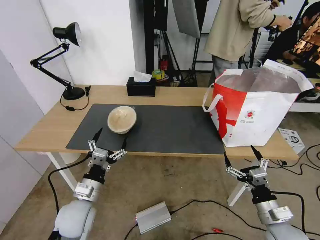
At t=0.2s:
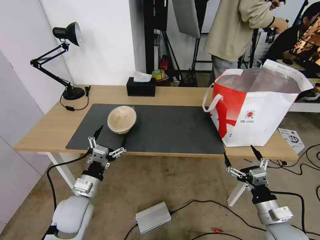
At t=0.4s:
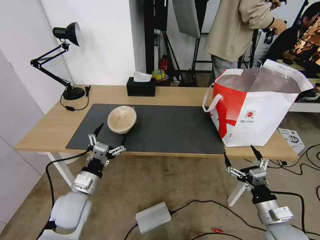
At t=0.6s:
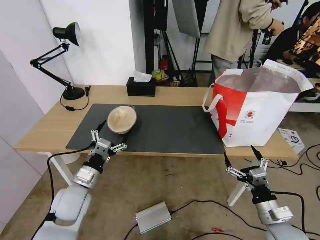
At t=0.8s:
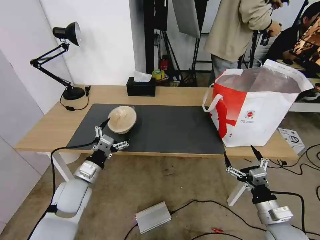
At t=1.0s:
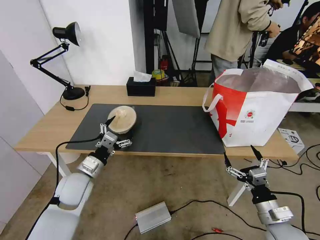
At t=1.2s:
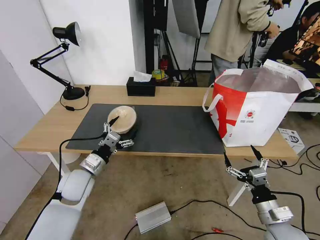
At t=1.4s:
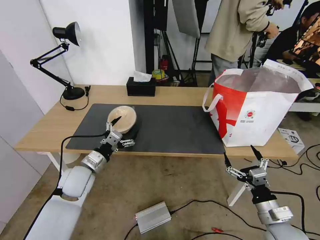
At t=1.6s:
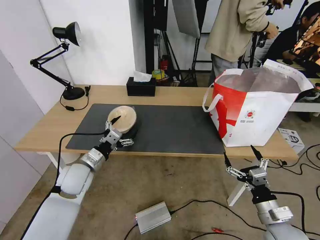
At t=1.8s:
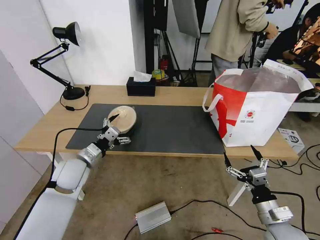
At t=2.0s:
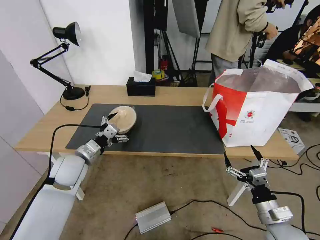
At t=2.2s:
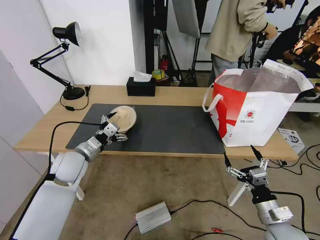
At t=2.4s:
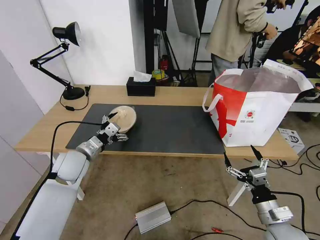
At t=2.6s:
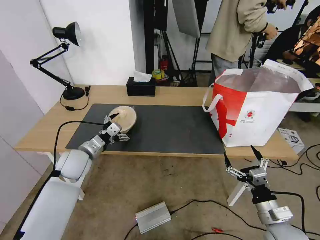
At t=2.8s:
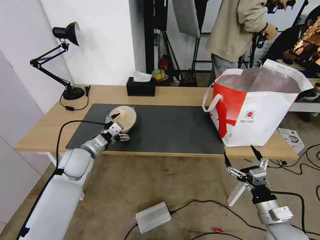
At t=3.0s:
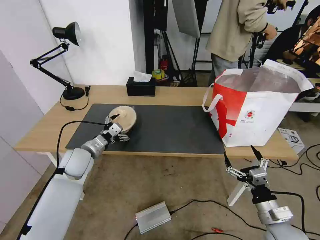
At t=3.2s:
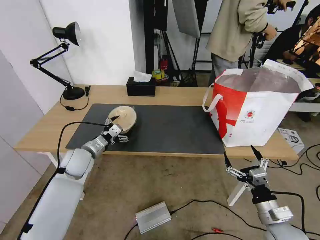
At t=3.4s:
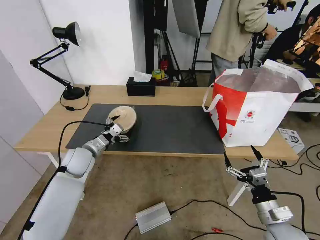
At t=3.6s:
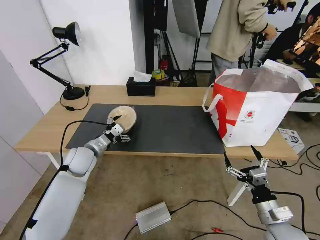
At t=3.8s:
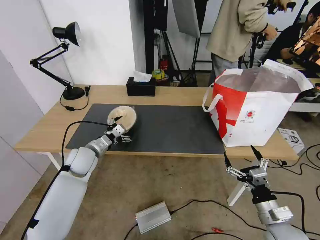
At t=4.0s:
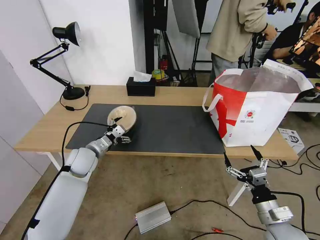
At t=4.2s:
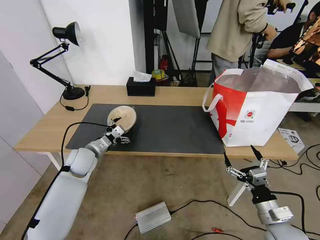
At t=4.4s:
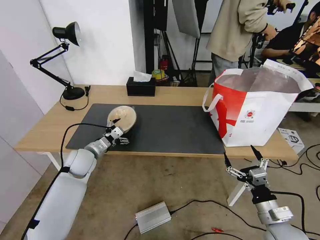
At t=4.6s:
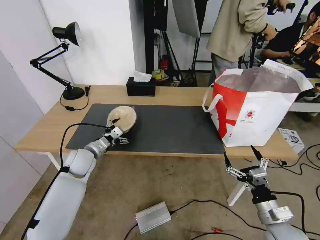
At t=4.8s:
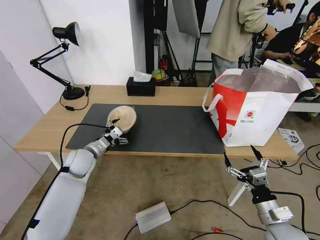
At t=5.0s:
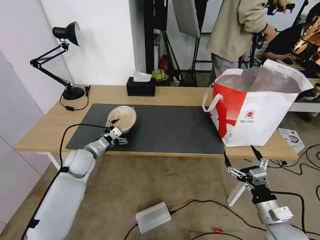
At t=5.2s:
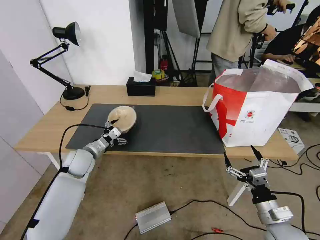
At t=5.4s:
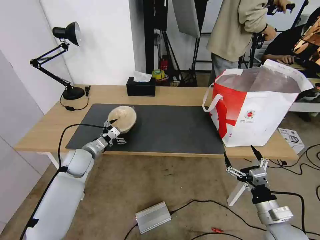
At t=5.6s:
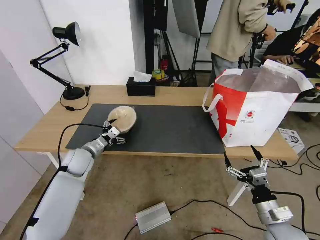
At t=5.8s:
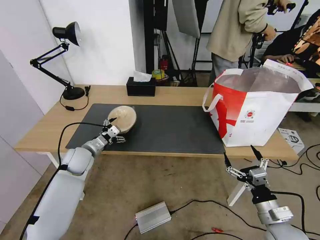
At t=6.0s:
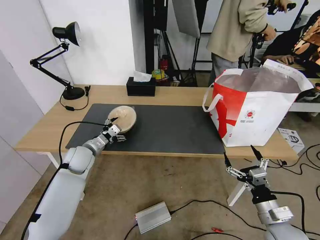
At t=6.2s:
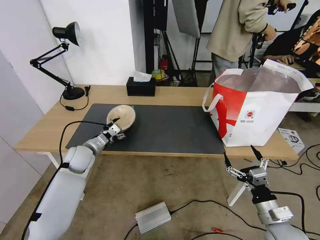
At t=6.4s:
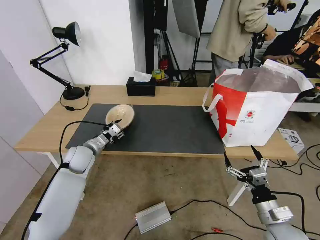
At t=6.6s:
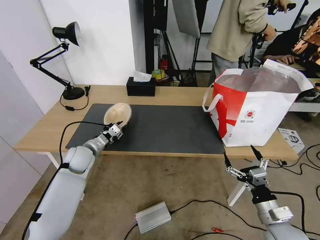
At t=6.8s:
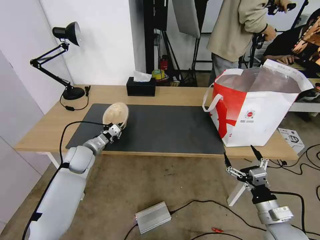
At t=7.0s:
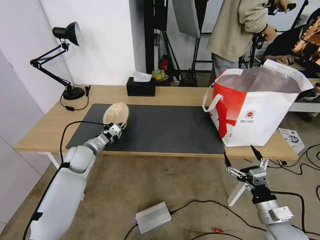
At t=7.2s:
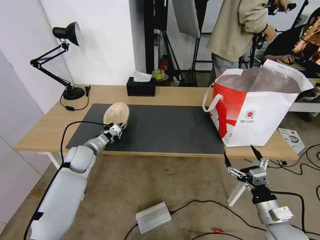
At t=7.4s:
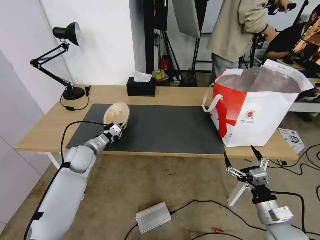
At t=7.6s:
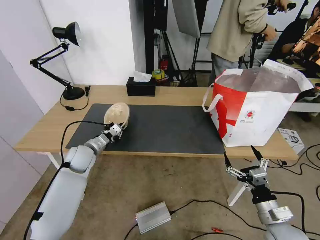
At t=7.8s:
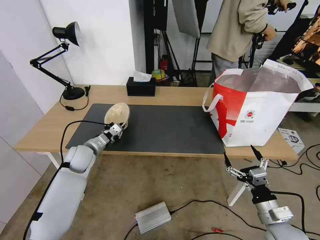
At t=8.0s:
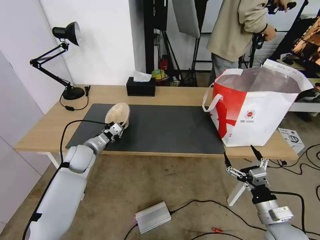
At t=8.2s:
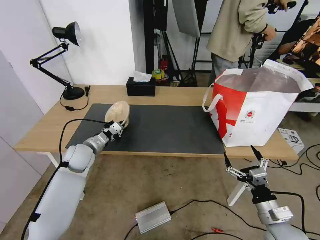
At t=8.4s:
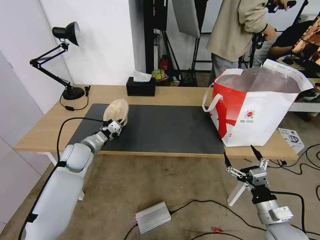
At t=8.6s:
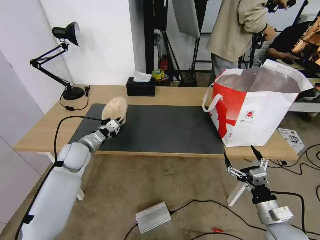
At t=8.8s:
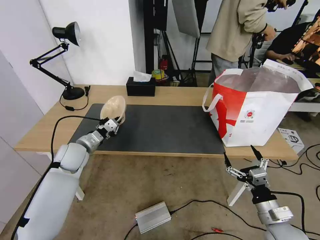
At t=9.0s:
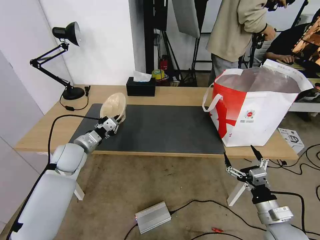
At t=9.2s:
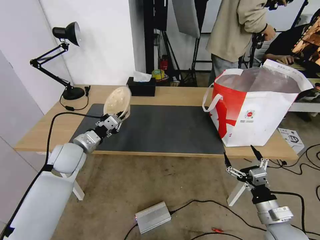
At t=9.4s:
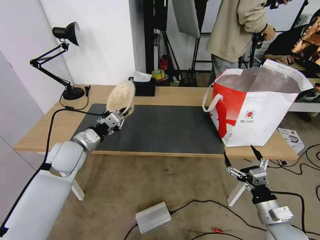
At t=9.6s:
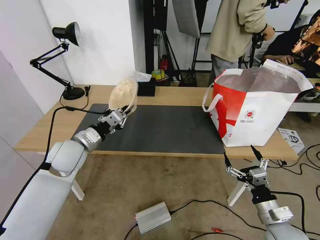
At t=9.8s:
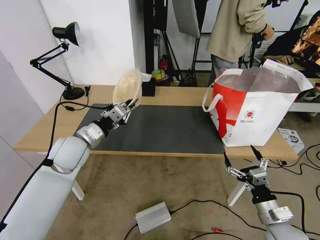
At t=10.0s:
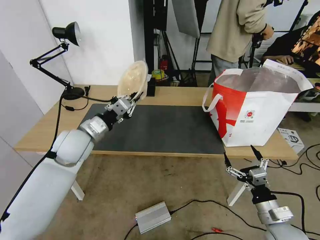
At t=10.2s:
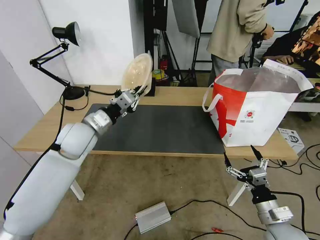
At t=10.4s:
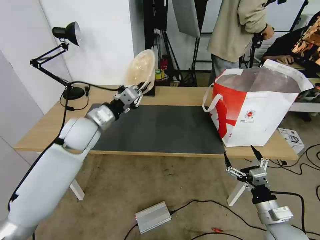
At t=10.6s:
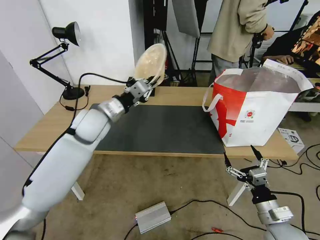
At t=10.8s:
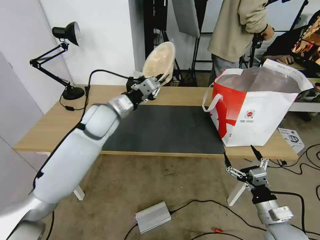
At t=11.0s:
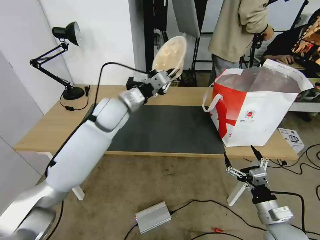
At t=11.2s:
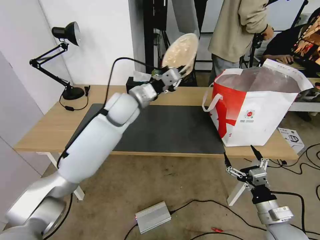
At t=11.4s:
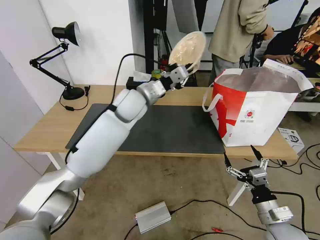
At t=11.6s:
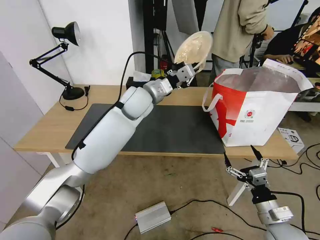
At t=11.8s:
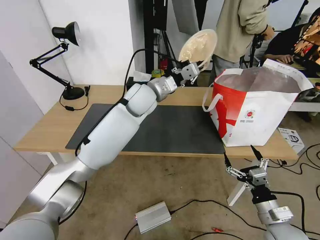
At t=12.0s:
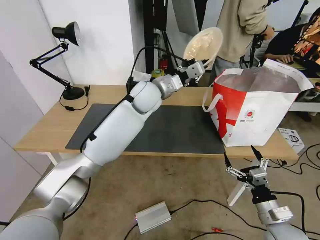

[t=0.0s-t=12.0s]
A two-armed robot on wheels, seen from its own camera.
Task of the whole recording: Pick up the trash from the table and place it into the takeout bag.
t=0.0s to t=1.6s: The left gripper moves forward, some 10 cm.
t=1.6s to t=3.0s: The left gripper travels forward by about 5 cm.
t=3.0s to t=6.0s: The grippers stay close to where they were, moving slightly.
t=6.0s to t=7.6s: The left gripper closes.
t=7.6s to t=9.0s: The left gripper travels upward by about 5 cm.
t=9.0s to t=10.4s: The left gripper heads upward and to the right, covering approximately 15 cm.
t=10.4s to t=12.0s: The left gripper moves to the right and forward, approximately 20 cm.

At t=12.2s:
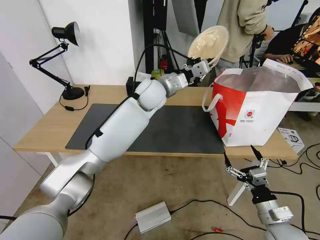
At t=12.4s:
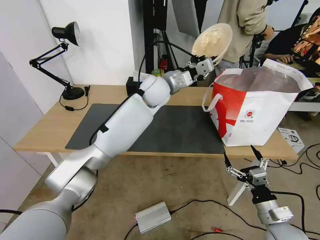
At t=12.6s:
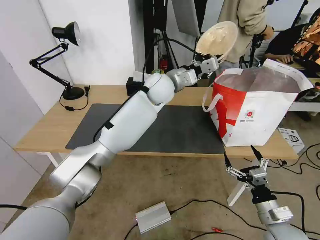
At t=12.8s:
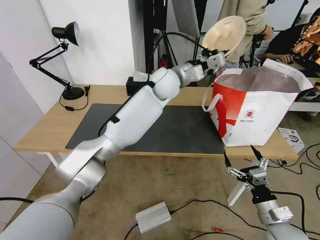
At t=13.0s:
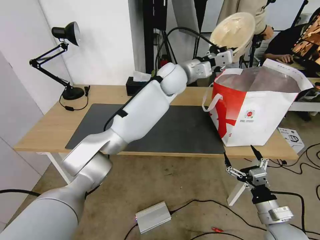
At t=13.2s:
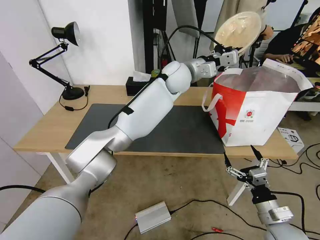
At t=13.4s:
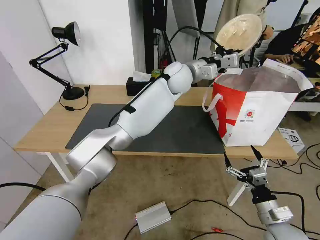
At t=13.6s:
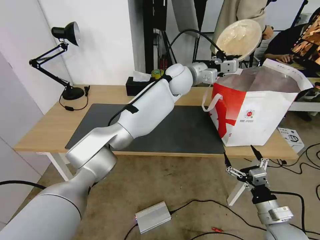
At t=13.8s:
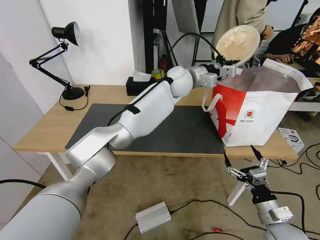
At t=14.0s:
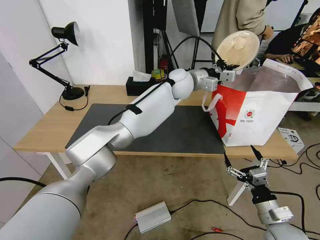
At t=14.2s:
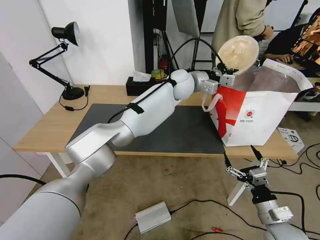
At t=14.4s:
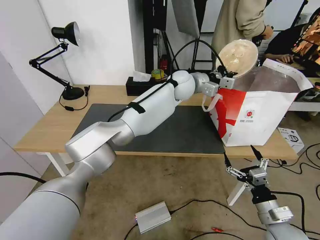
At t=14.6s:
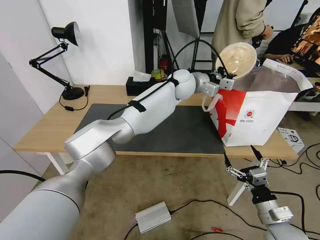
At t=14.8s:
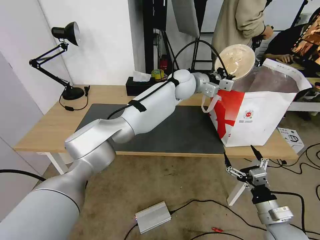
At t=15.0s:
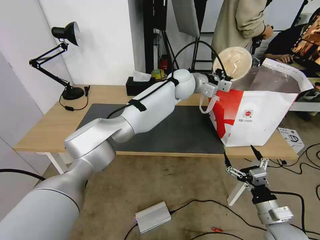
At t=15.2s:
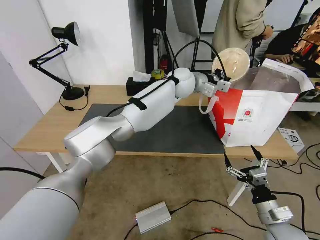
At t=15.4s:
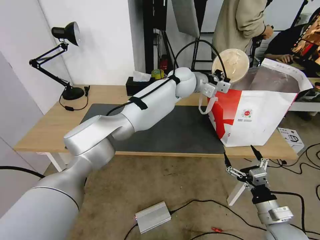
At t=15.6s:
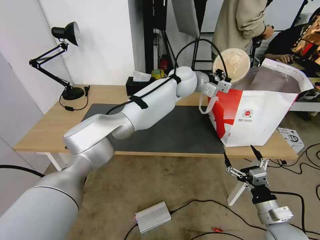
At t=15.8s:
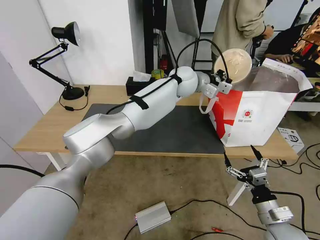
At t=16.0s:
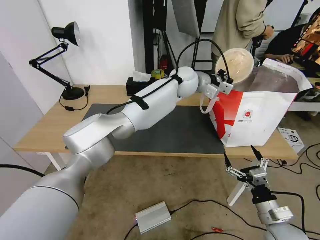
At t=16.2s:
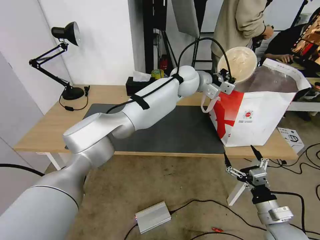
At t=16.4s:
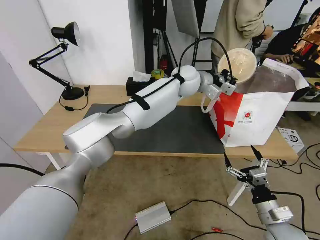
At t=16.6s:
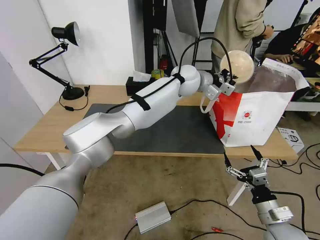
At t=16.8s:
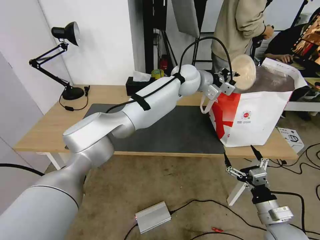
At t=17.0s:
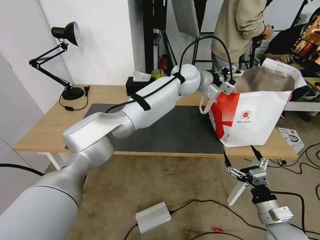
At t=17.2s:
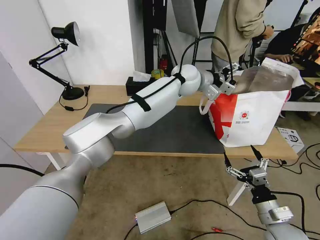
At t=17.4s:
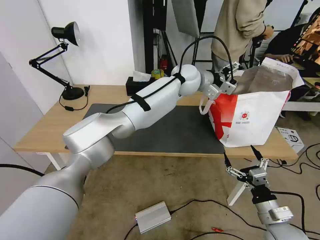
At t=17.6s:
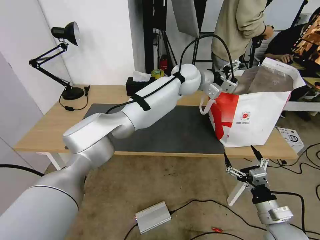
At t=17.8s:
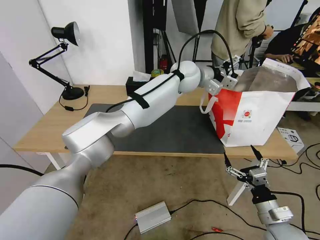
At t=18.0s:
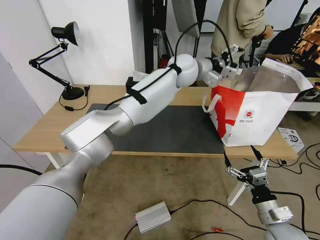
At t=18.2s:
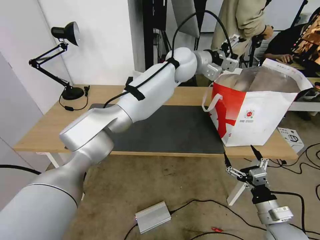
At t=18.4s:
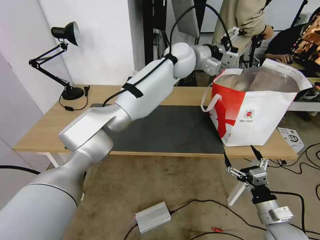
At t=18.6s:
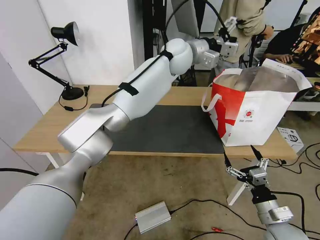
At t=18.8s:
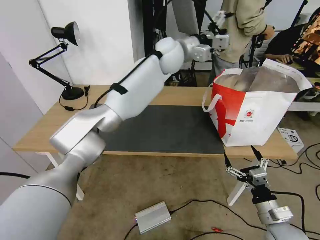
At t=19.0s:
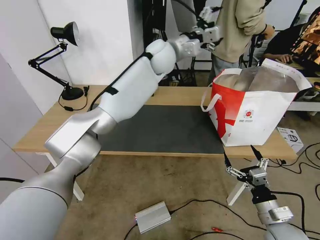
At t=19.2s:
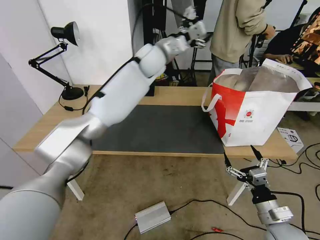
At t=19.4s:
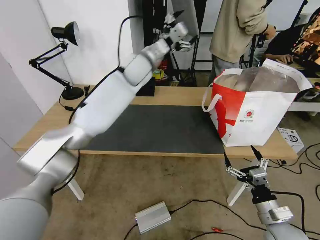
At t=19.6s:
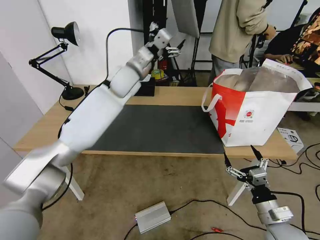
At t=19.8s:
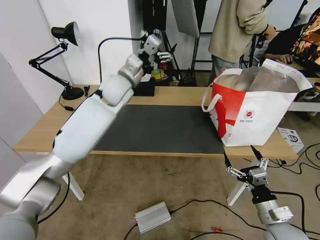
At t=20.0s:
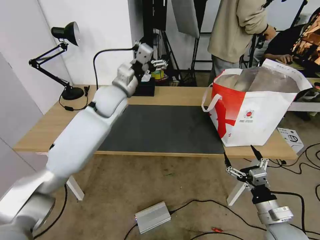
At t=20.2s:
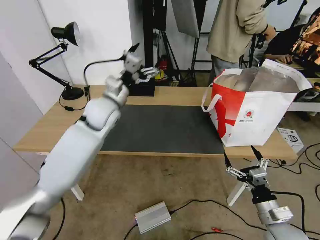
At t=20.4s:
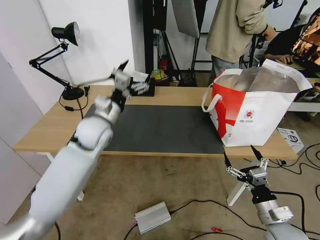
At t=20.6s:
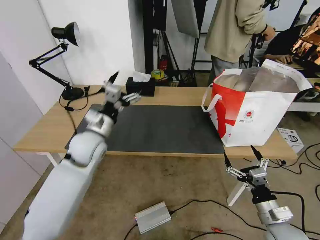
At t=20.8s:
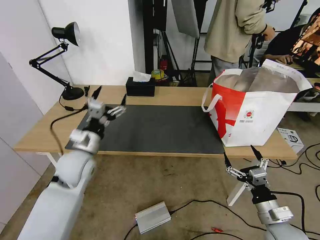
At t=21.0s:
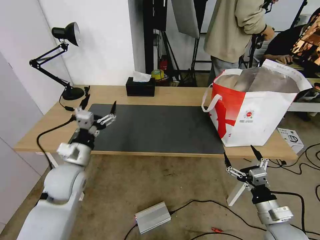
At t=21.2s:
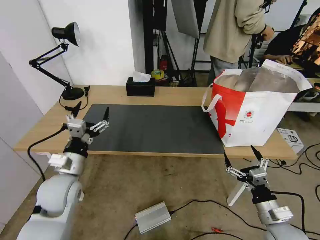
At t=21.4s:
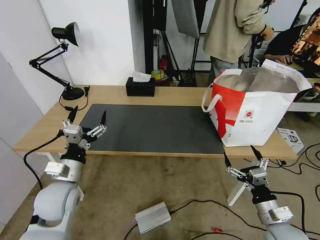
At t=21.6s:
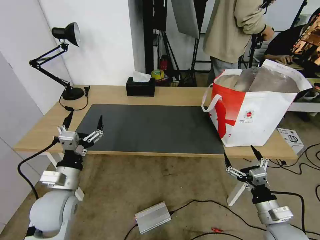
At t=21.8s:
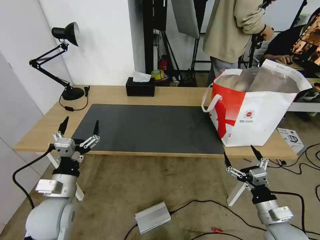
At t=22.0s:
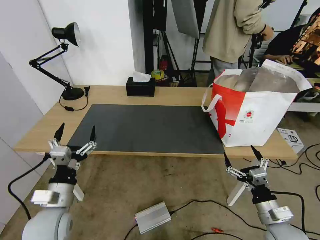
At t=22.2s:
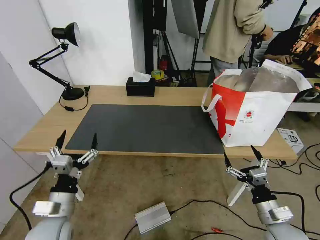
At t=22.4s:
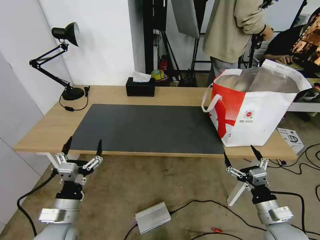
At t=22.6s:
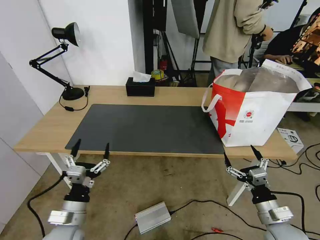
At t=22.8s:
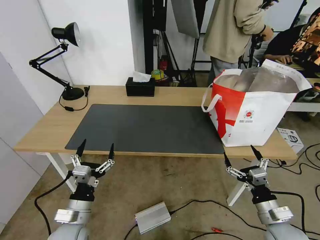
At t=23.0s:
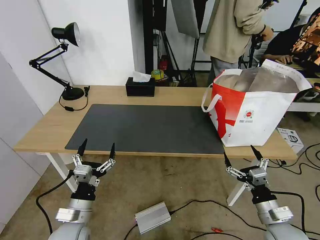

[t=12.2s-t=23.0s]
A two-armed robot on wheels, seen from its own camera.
Task of the whole recording: Pick up the trash from the table and place it into the takeout bag.
t=12.2s to t=13.8s: The left gripper goes roughly 10 cm to the right and forward.
t=13.8s to t=15.2s: The grippers make only small movements.
t=15.2s to t=16.8s: The left gripper opens up.
t=16.8s to t=18.4s: The left gripper heads upward, covering roughly 5 cm, and opens up.
t=18.4s to t=20.0s: The left gripper travels to the left, downward and backward by roughly 25 cm.
t=20.0s to t=21.4s: The left gripper moves backward, downward and to the left, some 30 cm.
t=21.4s to t=23.0s: The left gripper goes about 10 cm downward and backward.
